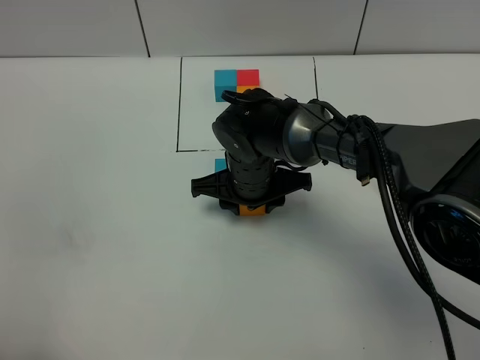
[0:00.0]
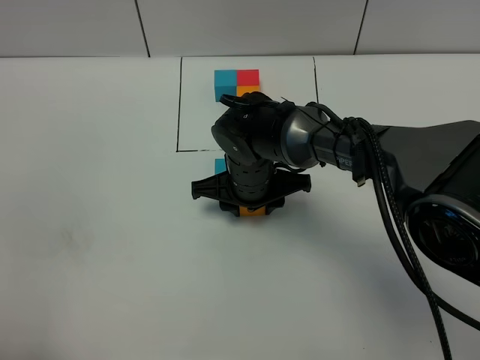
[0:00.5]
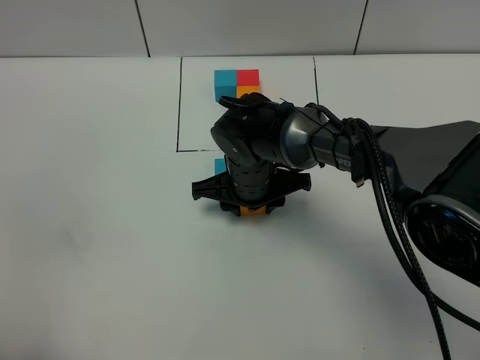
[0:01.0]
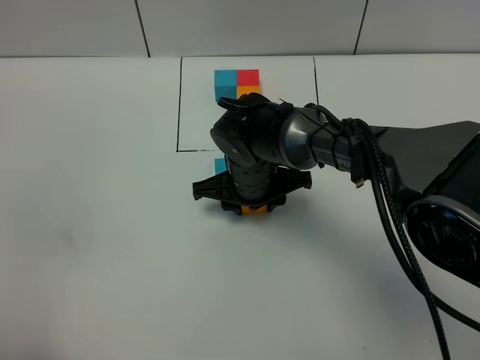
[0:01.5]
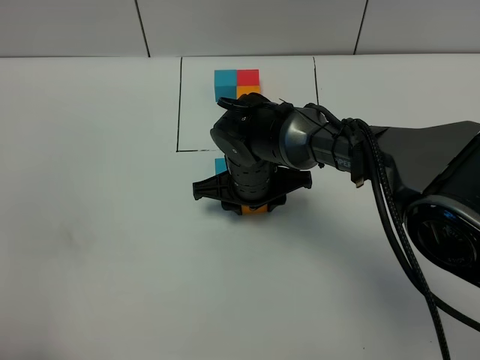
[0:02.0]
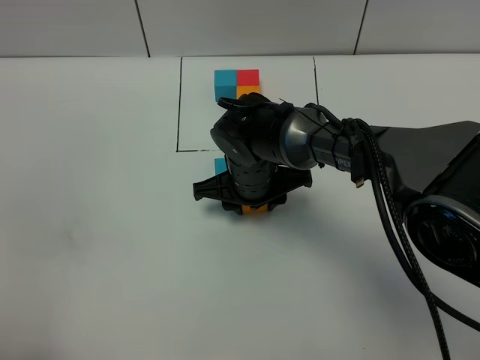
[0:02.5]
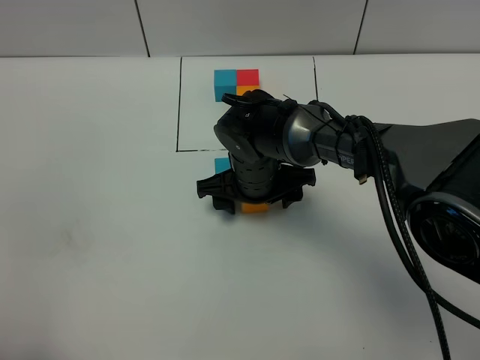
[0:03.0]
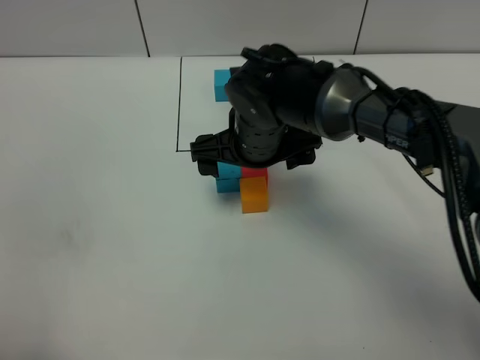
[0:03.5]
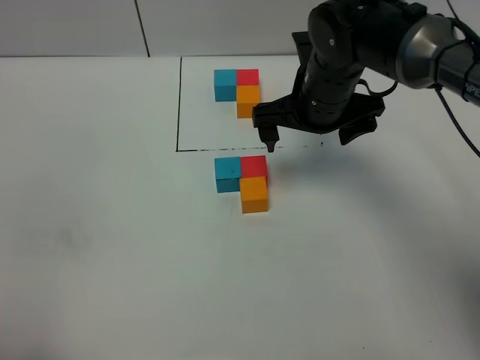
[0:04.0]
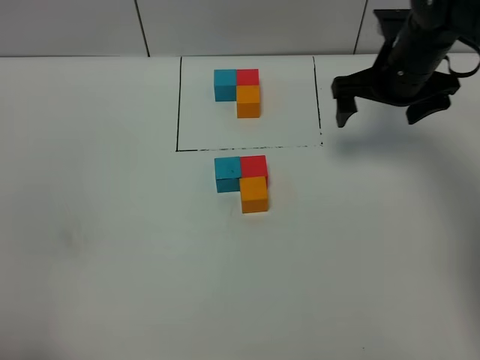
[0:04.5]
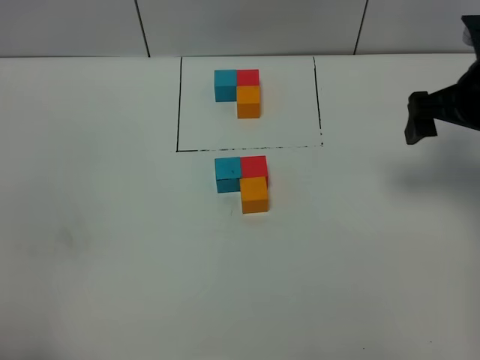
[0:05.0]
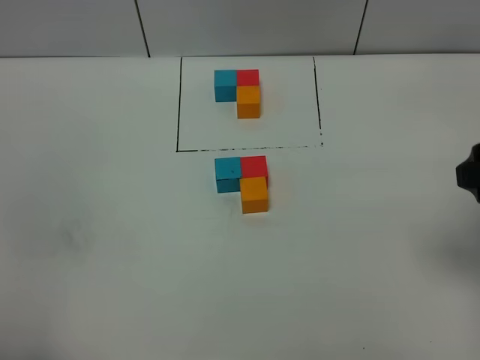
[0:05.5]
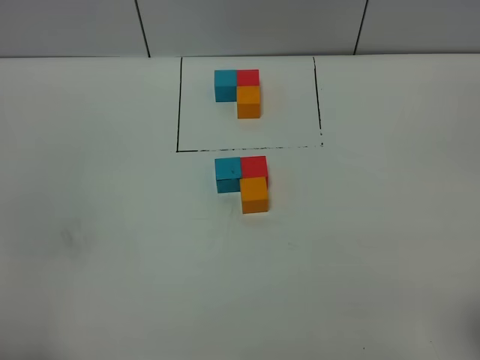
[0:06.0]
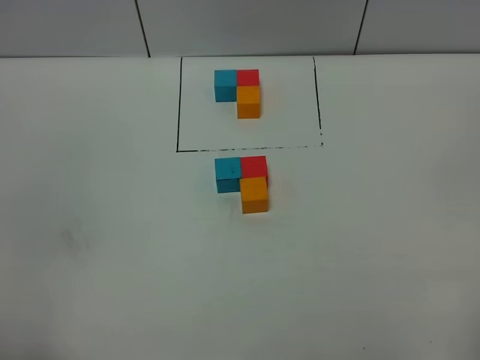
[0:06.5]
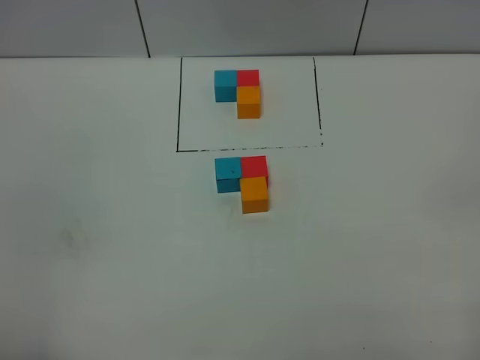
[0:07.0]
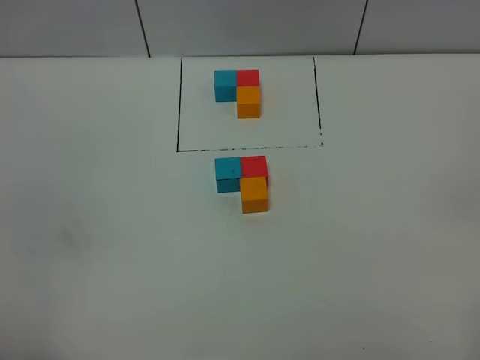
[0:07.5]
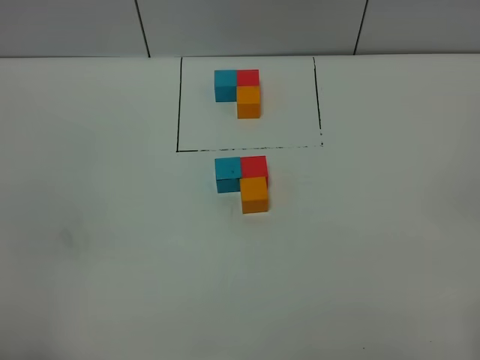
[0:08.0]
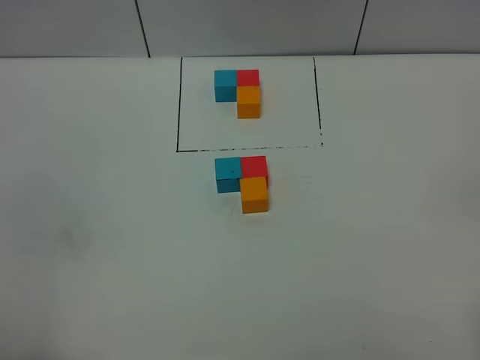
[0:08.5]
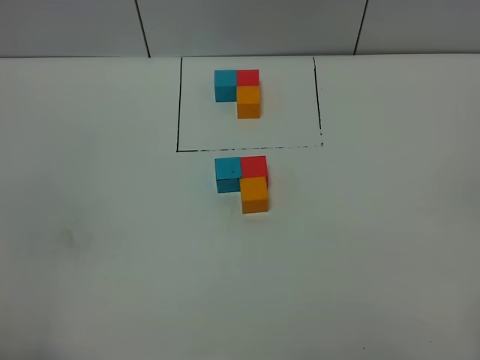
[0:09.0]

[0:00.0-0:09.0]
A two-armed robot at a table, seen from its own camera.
Task of the whole recording: According to the building block template in front, assemble the scattered blocks together.
Step, 0:00.0 to 0:03.0: Put the orange build block on the behind of the red build block.
0:00.0 to 0:02.0: Both grippers stay put.
0:02.0 to 0:04.5: The right gripper heads to the right and upward, covering roughly 25 cm, and opens its fingers.
0:04.5 to 0:07.0: The right gripper moves backward, approximately 40 cm.

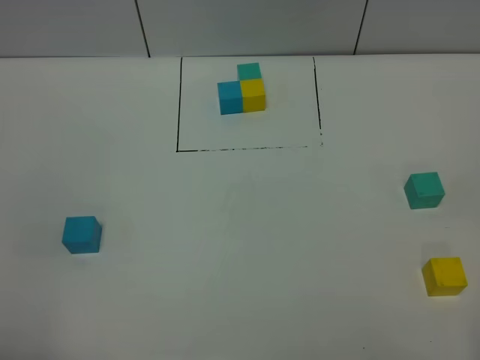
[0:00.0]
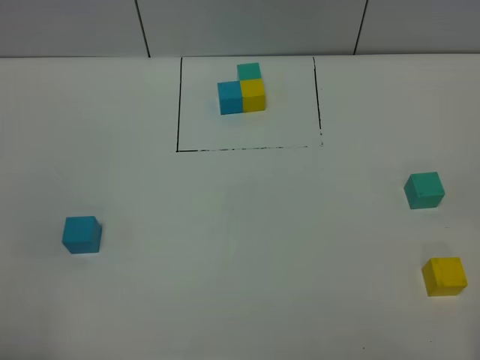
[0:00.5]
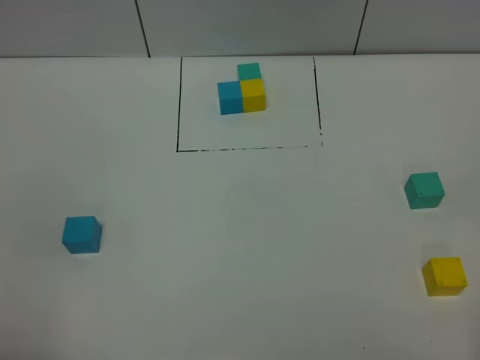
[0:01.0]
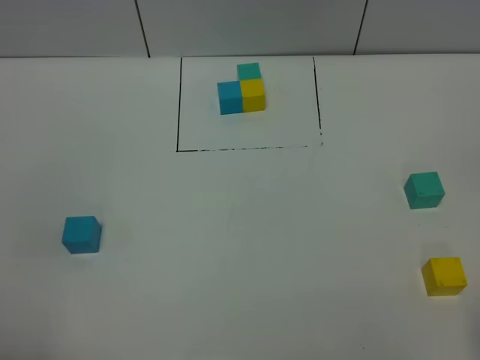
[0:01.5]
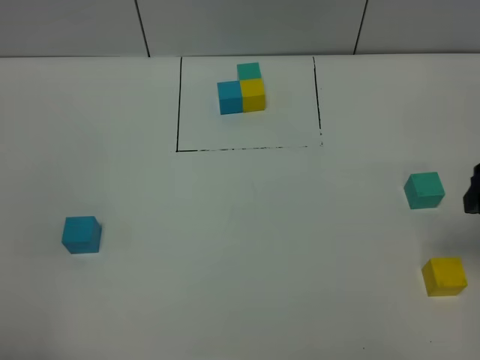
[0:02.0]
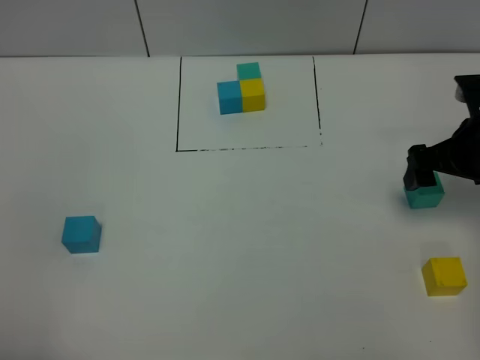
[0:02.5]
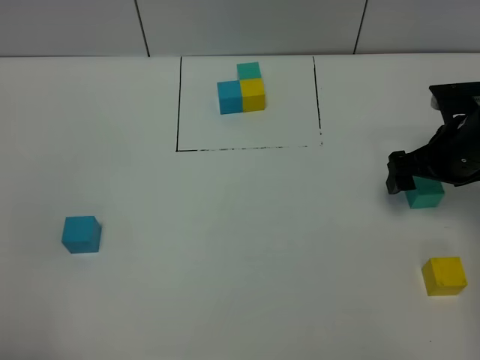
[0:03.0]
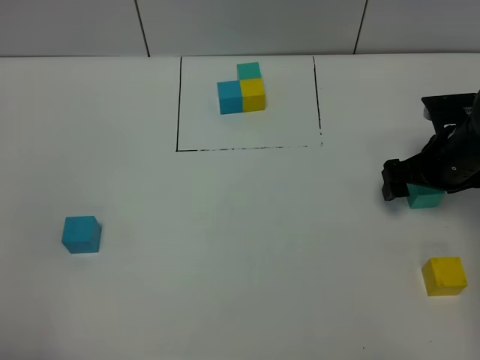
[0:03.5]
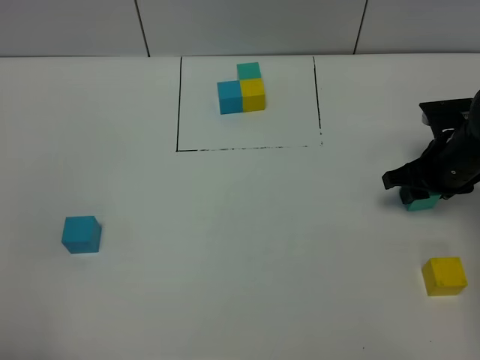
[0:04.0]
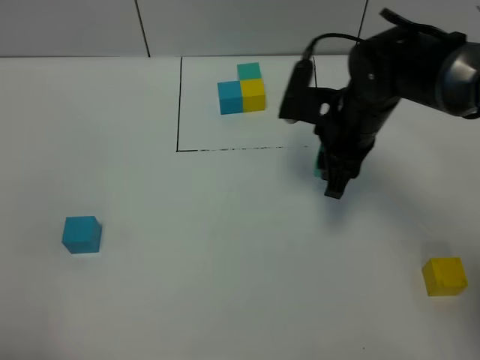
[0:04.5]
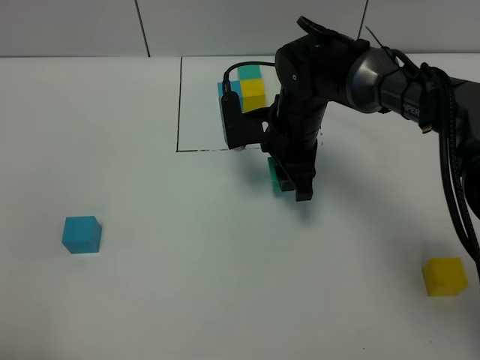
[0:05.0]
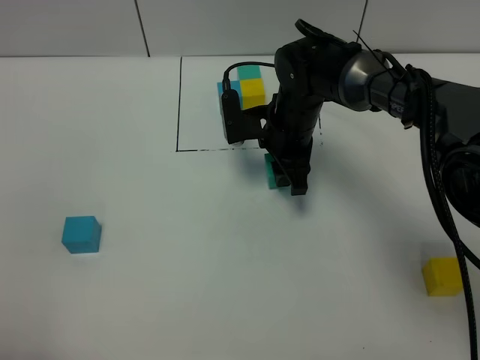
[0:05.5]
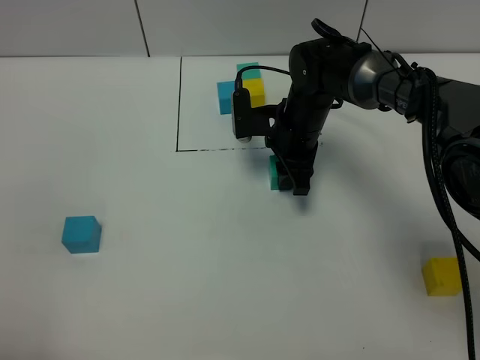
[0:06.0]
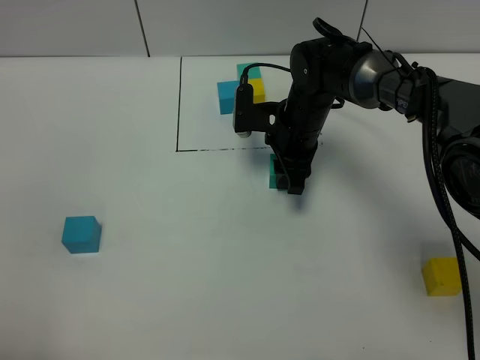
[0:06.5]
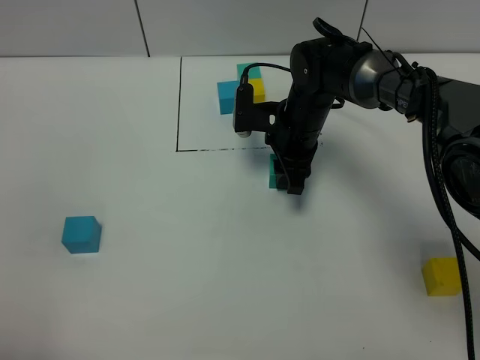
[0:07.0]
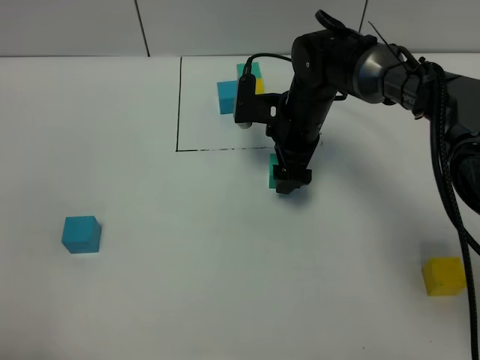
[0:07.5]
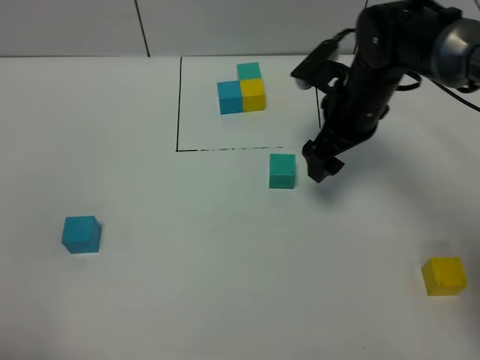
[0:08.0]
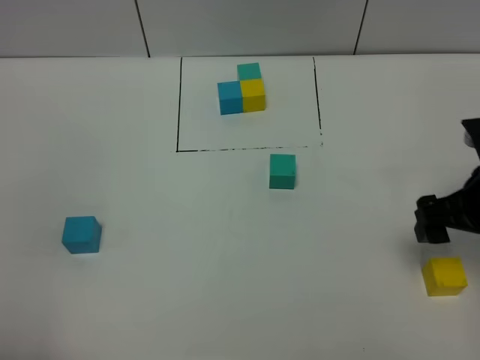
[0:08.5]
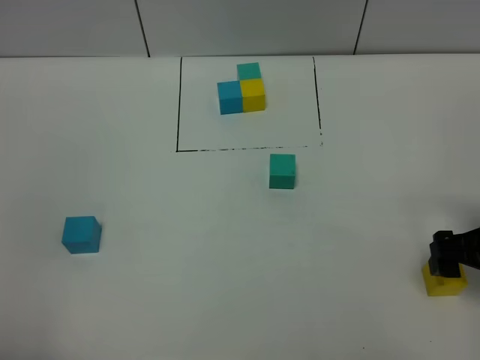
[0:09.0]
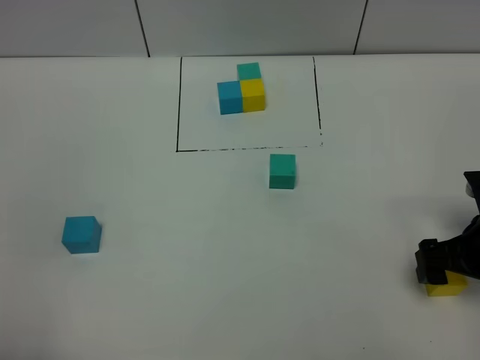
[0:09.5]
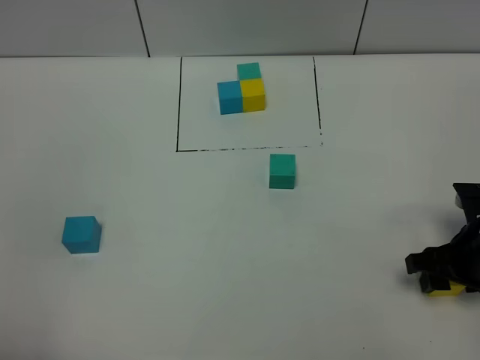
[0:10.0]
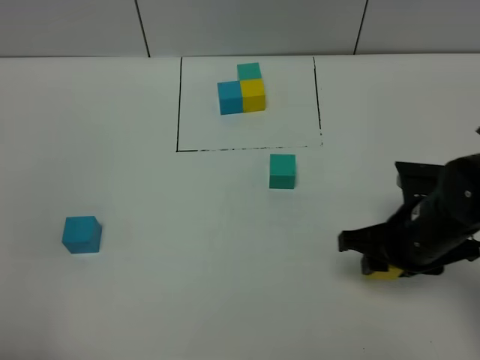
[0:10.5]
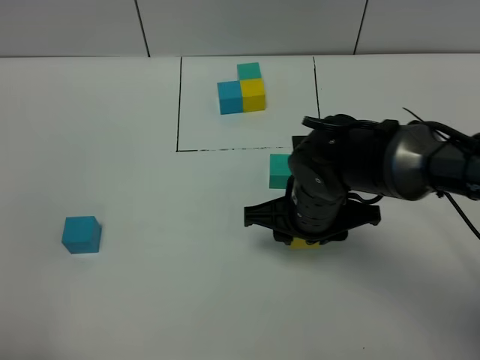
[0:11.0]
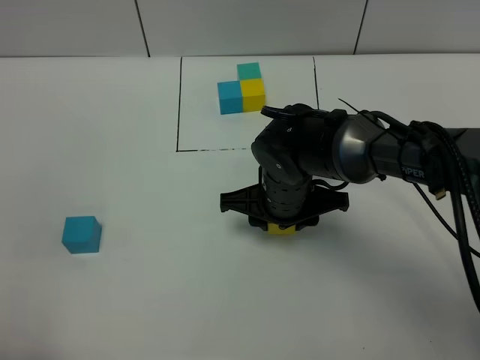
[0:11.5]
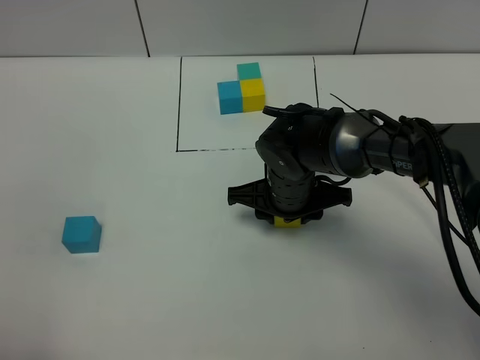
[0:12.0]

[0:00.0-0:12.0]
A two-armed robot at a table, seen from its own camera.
Task of the whole recording: According to the building block template in front, assemble the scattered blocks together.
Step, 0:00.0 to 0:07.0: Put the green build block in the center of the table.
0:00.0 to 0:02.0: The right gripper is displaced forward by some 25 cm.
0:02.0 to 0:04.0: The right gripper is displaced downward and forward by some 15 cm, and closes its fingers.
0:04.0 to 0:06.0: The right gripper goes roughly 20 cm to the left.
0:06.0 to 0:08.0: The right gripper shifts approximately 10 cm to the right and upward, and opens up.
0:08.0 to 0:10.0: The right gripper travels backward, to the right and downward by roughly 20 cm, and closes its fingers.
0:10.0 to 0:12.0: The right gripper moves to the left and forward, about 25 cm.

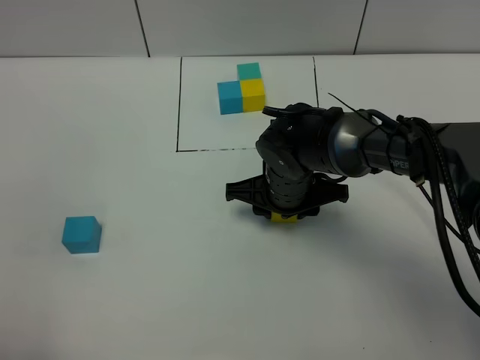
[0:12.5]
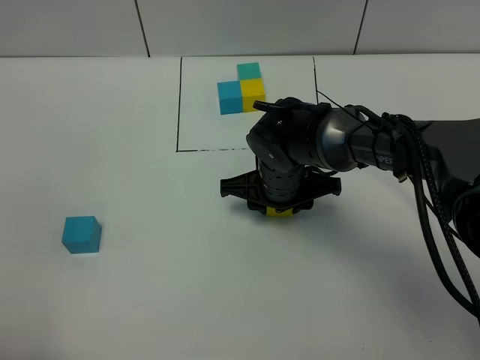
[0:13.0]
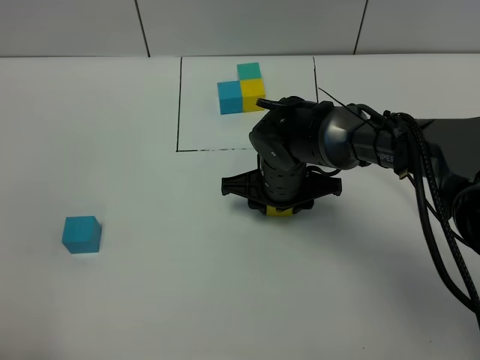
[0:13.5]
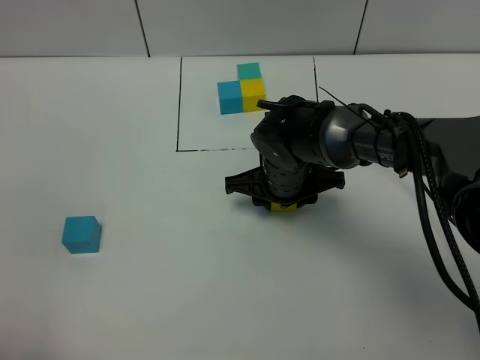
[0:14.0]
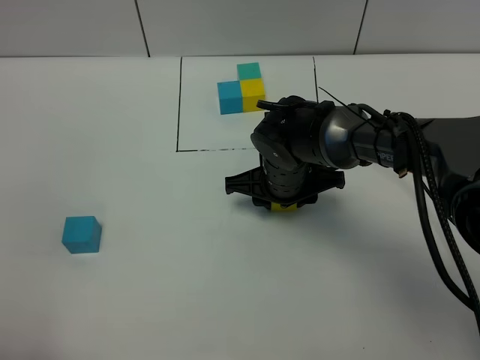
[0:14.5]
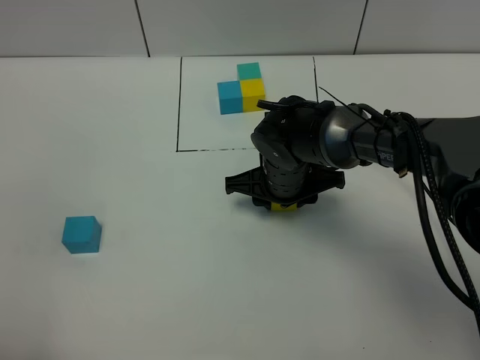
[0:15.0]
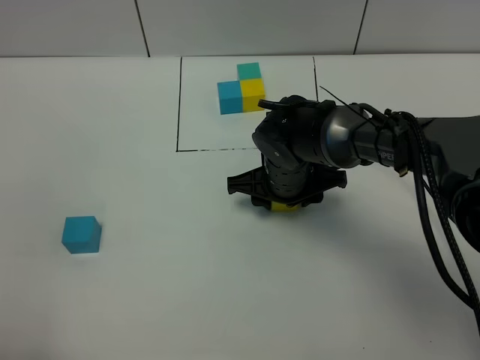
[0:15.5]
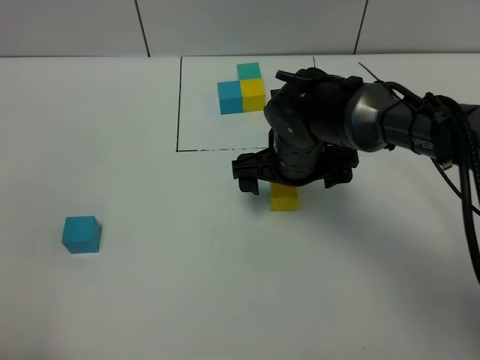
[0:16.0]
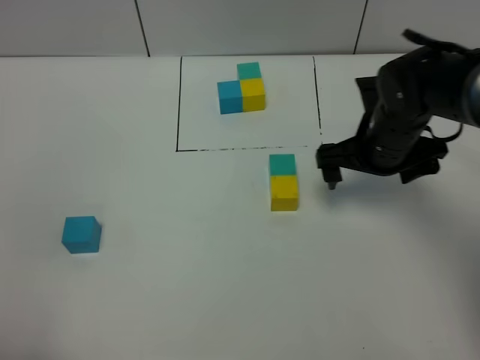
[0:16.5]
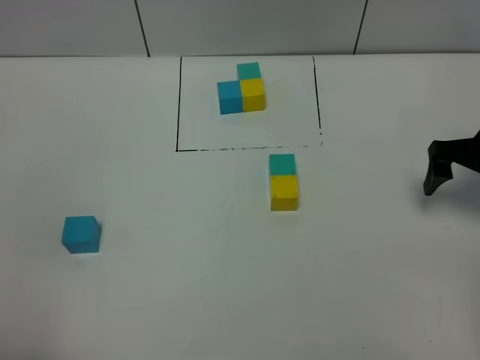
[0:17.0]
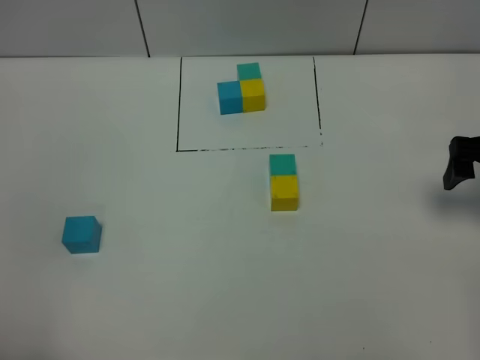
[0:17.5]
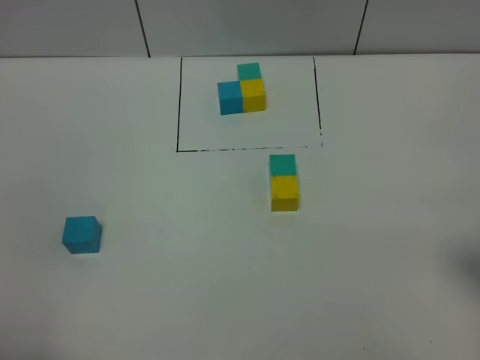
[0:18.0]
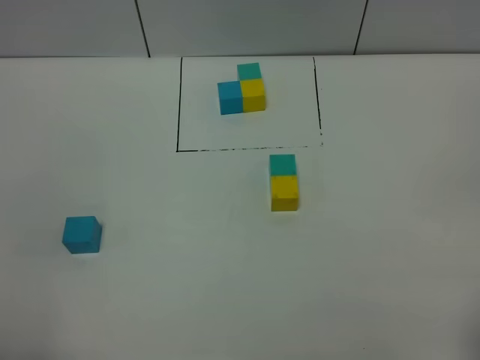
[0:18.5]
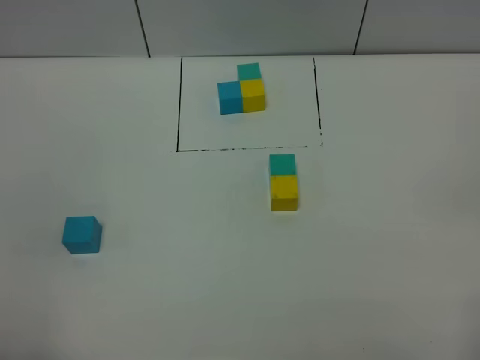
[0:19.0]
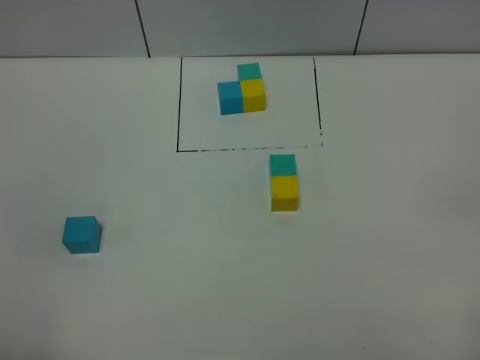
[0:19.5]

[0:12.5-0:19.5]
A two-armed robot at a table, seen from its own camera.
Task of the whole recording: According to the building block template in front, assemble the scattered blocks together.
Step, 0:12.5 to 0:15.5: Put the yellow build block on the behind of the green build block.
0:12.5 to 0:14.5: The grippers stay close to where they were, moving slightly.
0:14.5 to 0:16.0: The right gripper opens up.
0:16.0 to 0:17.5: The right gripper goes approximately 25 cm to the right.
0:17.5 to 0:19.5: The right gripper heads backward, covering roughly 30 cm.
